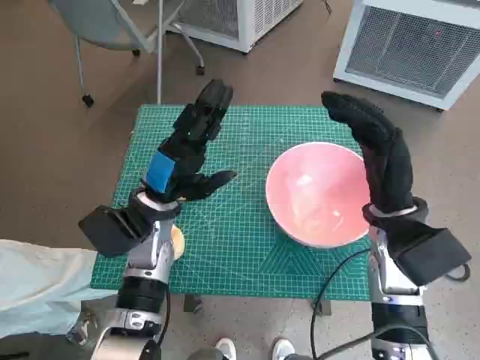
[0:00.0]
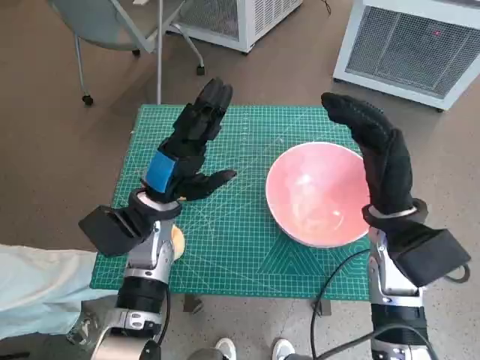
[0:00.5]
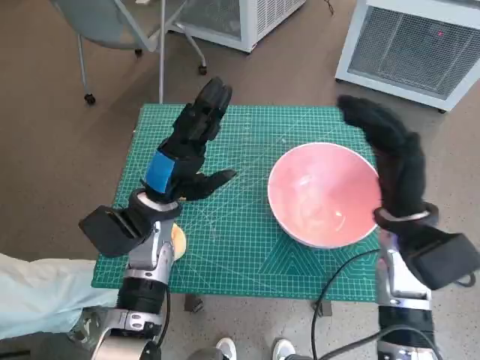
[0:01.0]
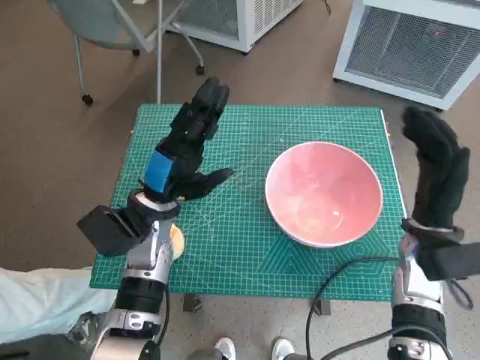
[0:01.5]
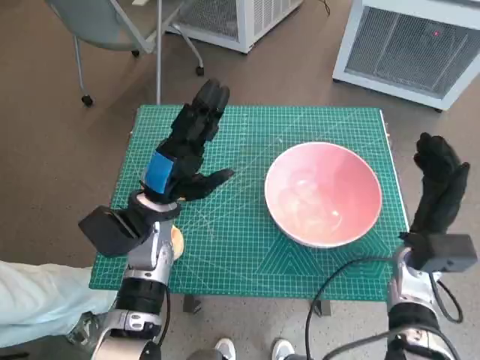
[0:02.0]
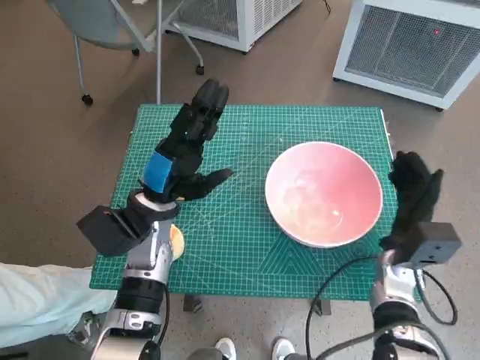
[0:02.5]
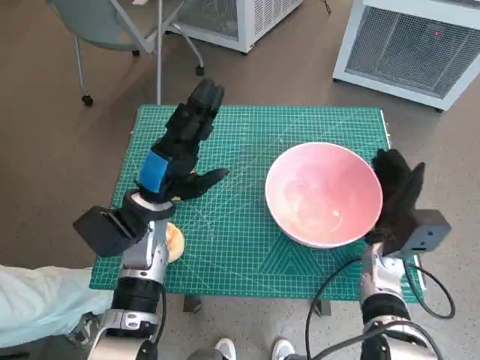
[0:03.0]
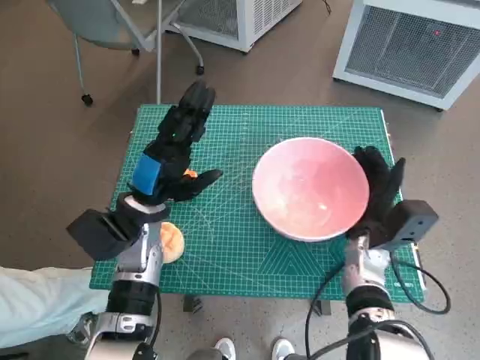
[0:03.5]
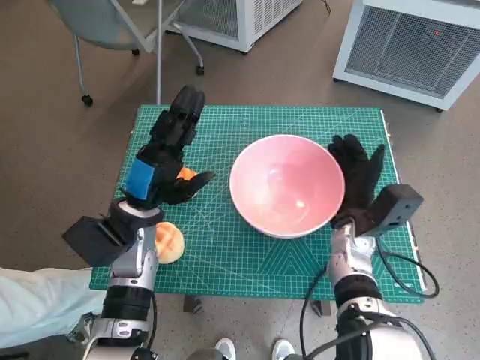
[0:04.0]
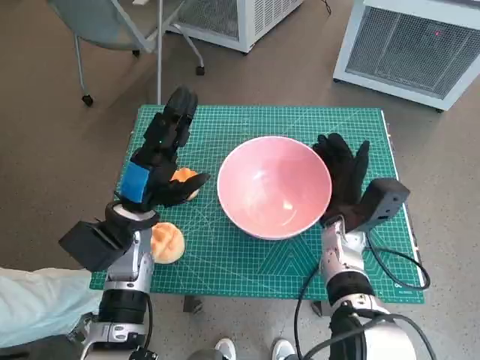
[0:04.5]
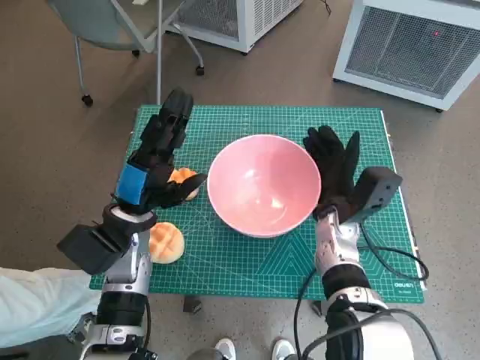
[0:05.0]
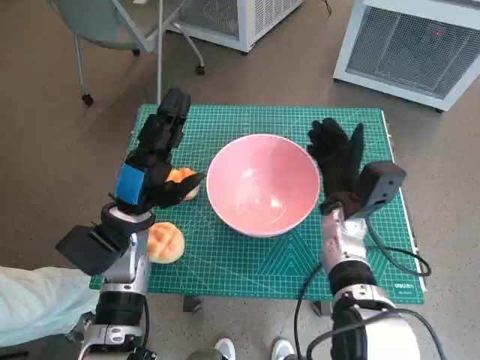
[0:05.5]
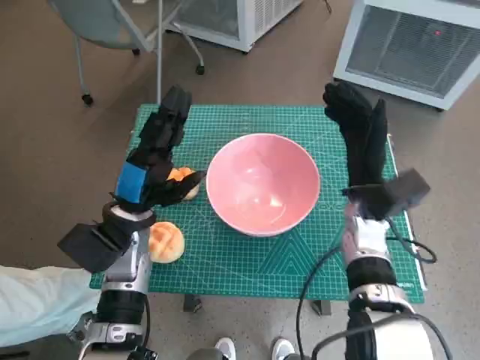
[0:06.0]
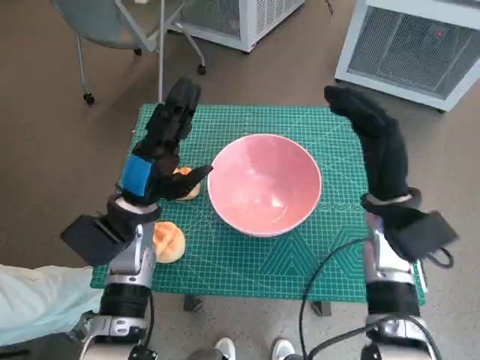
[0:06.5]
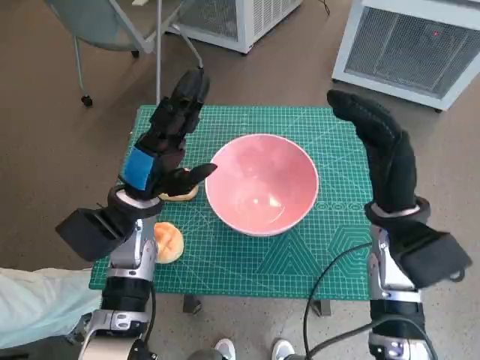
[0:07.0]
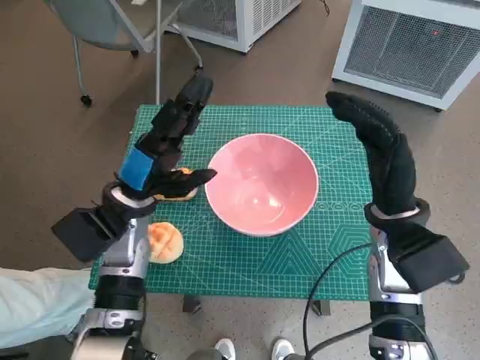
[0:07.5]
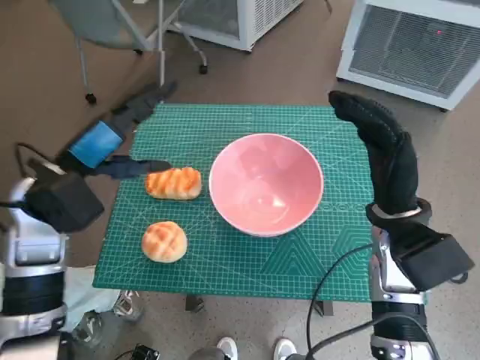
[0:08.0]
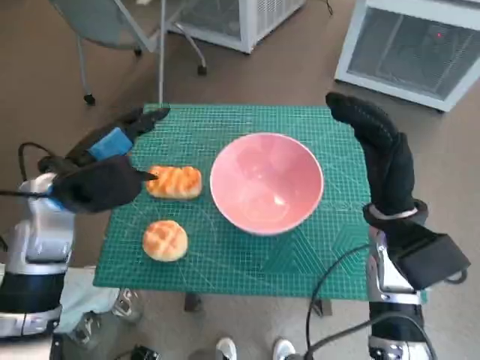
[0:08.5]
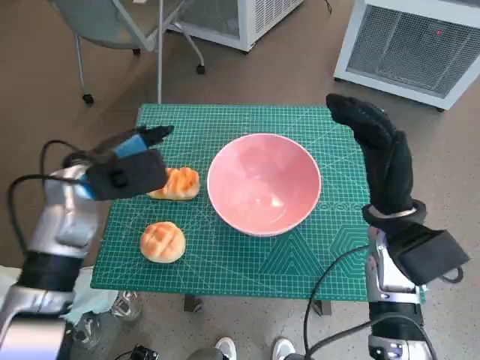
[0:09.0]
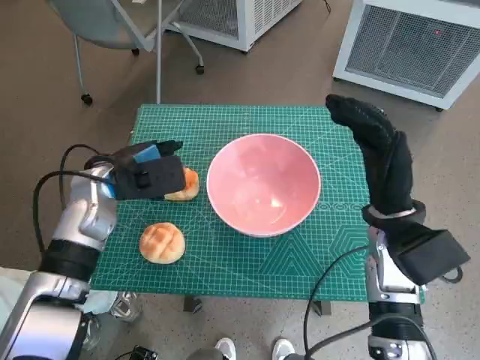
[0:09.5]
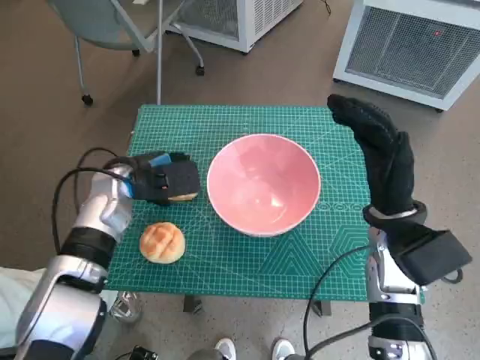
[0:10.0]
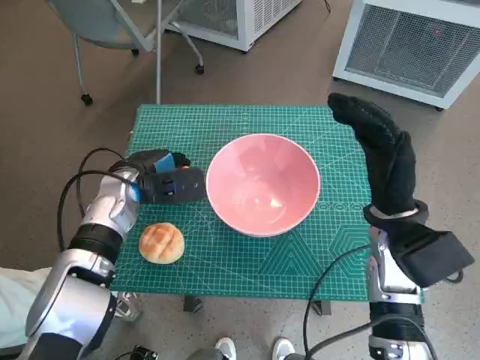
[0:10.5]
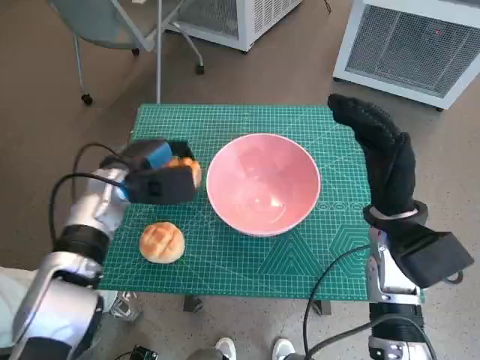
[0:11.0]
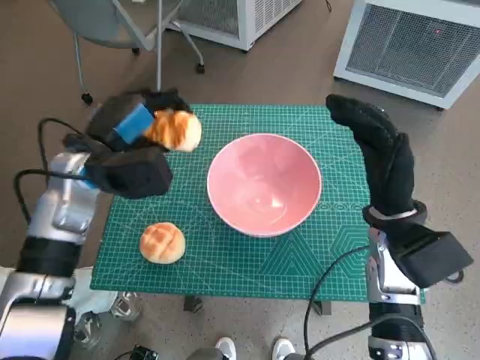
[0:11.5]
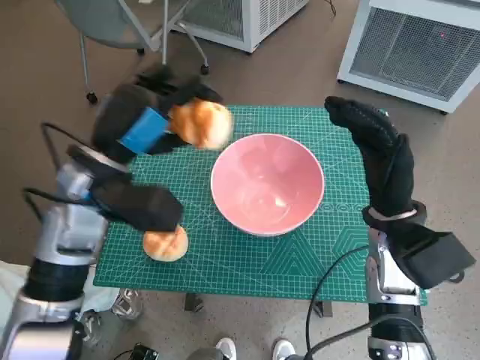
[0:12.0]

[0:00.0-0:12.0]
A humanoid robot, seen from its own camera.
Task of the whole recording: Push the bowl into the center of the table and put the bread into the bowl.
Step, 0:00.0 to 0:05.5: Move the pink bowl to the center of table with right hand.
Step, 0:06.0 to 0:10.0: Grasp the long bread with left hand.
0:02.0 to 0:04.0: The right hand is displaced to the left by about 10 cm.
0:04.0 to 0:06.0: The right hand moves upward, some 5 cm.
0:06.0 to 0:08.0: The left hand shifts approximately 10 cm upward and to the left. Meanwhile the right hand moves backward, roughly 5 cm.
0:08.0 to 0:10.0: The left hand heads downward and forward, covering some 10 cm.
0:10.0 to 0:12.0: The left hand travels upward and backward by some 10 cm.

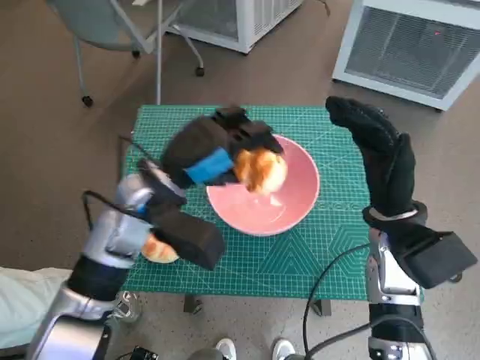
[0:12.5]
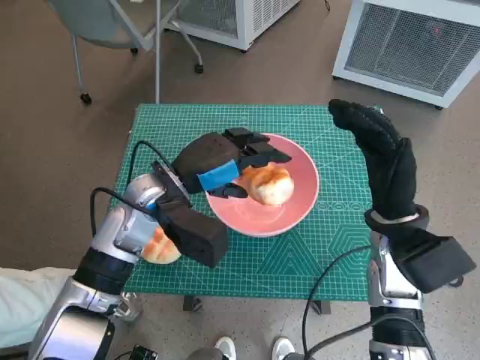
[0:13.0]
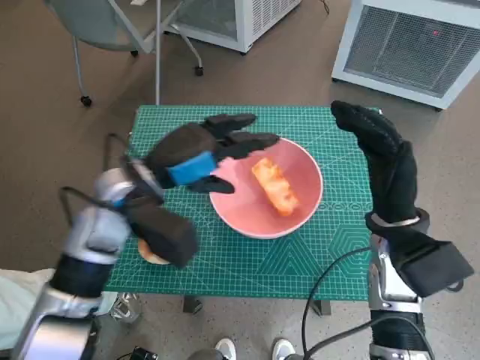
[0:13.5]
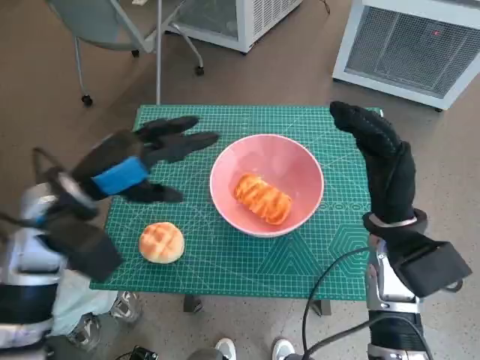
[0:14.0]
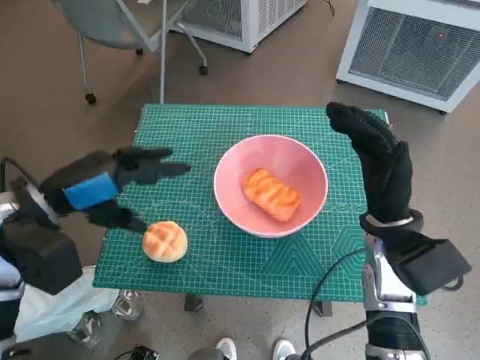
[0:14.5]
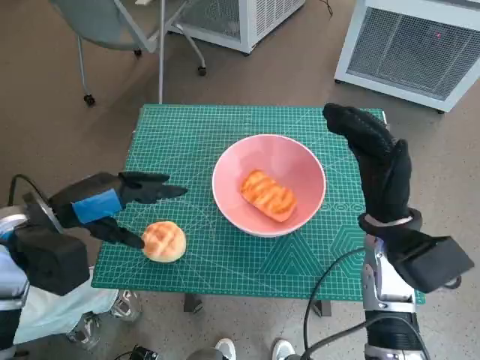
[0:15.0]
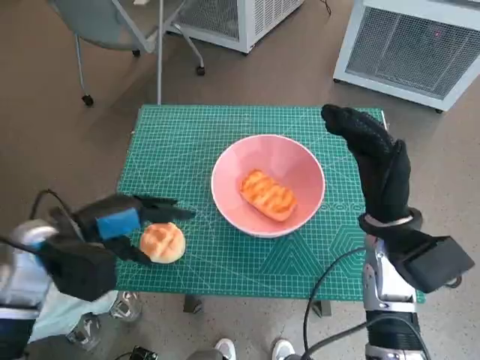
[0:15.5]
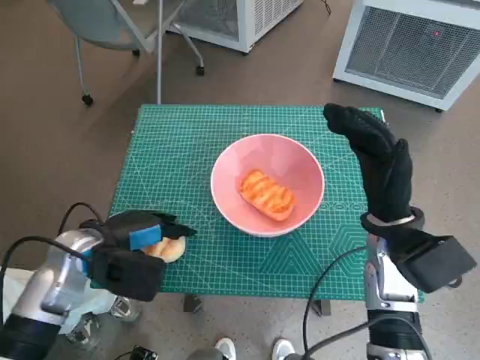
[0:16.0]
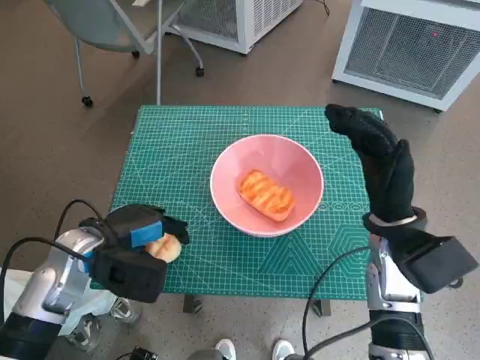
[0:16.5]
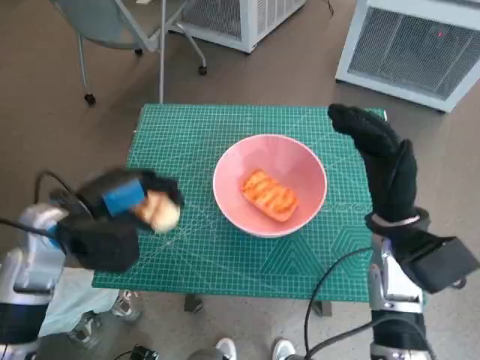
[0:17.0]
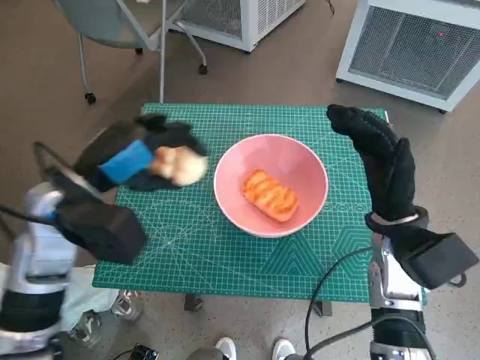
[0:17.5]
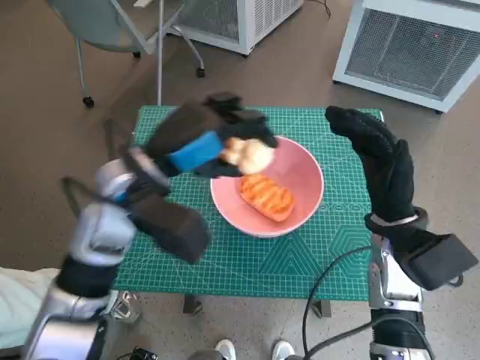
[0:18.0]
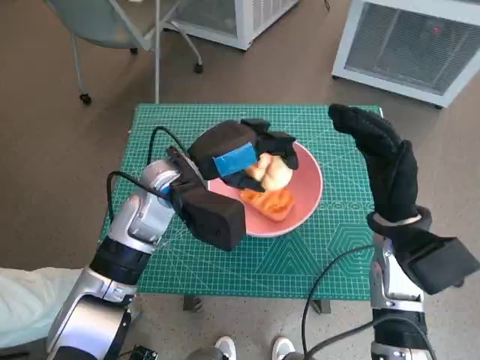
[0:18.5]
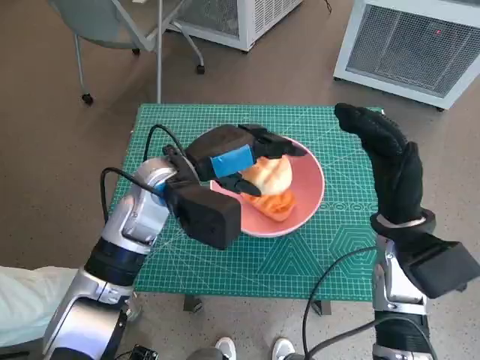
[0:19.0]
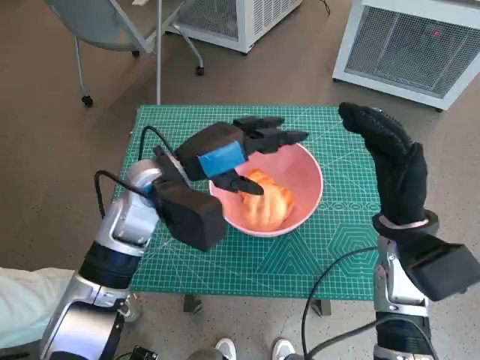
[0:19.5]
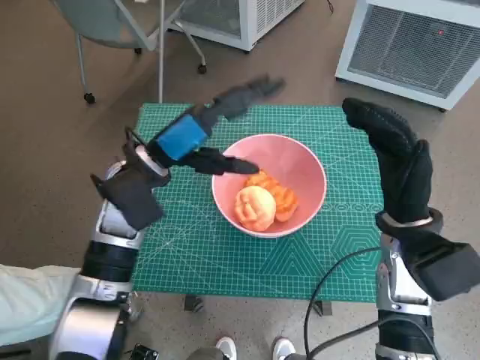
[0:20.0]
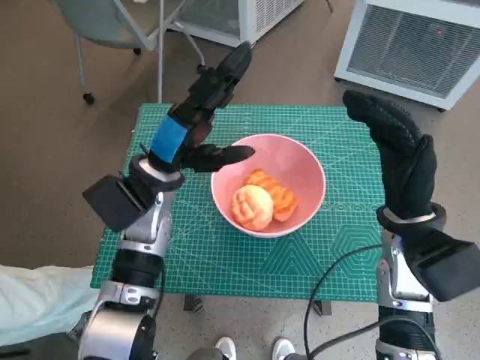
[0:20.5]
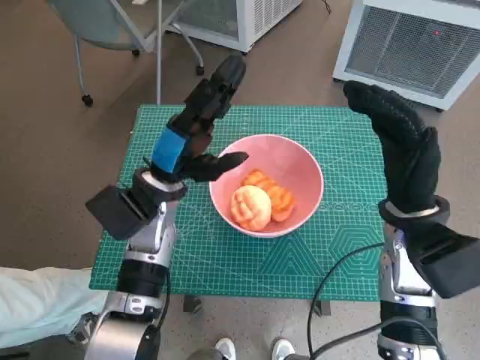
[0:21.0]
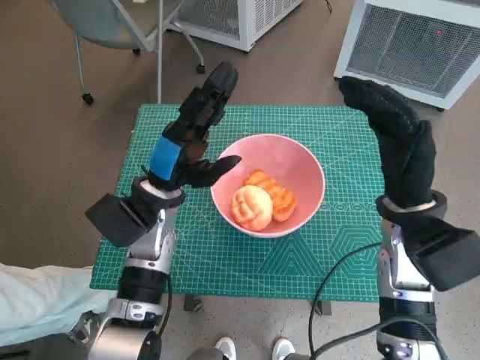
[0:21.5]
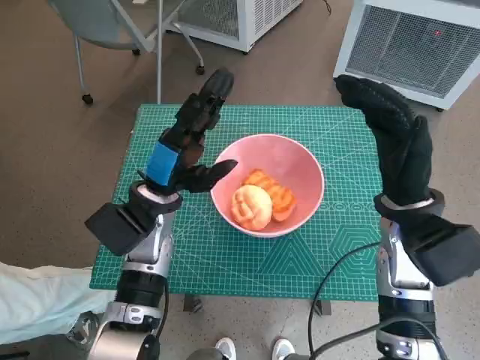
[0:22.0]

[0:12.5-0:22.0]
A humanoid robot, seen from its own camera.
Task of the whole recording: Push the bowl into the center of the table and put the bread into the bowl.
Step, 0:13.5 to 0:16.0: Grasp the round bread with left hand.
Step, 0:17.0 to 0:19.0: Place the round bread in pink bowl with left hand.
0:12.5 to 0:14.5: The left hand moves to the left, about 15 cm.
0:14.5 to 0:16.5: The left hand heads downward, covering about 10 cm.
0:16.5 to 0:18.0: The left hand shifts about 15 cm upward and to the right.
0:20.0 to 0:22.0: The left hand heads downward, covering approximately 5 cm.

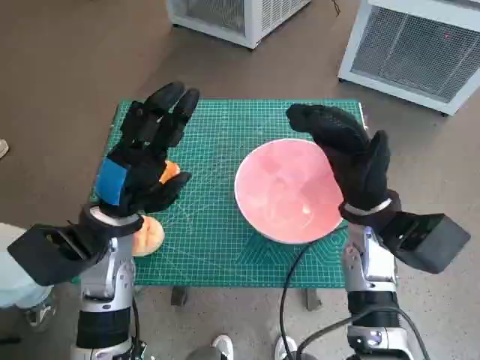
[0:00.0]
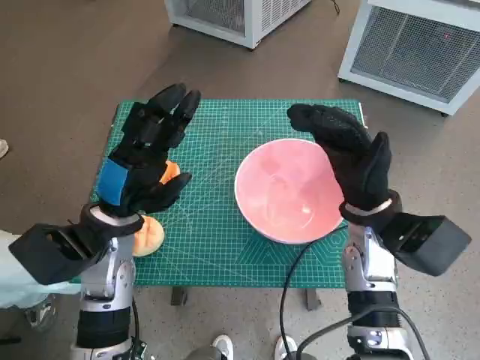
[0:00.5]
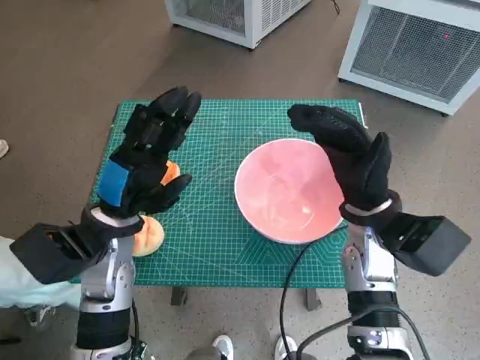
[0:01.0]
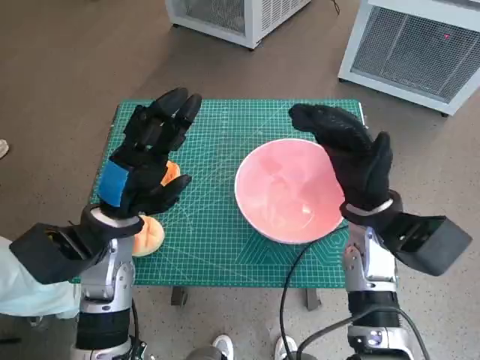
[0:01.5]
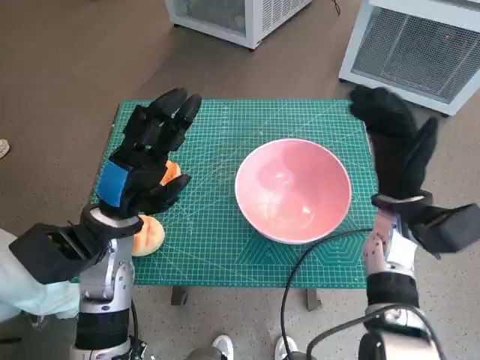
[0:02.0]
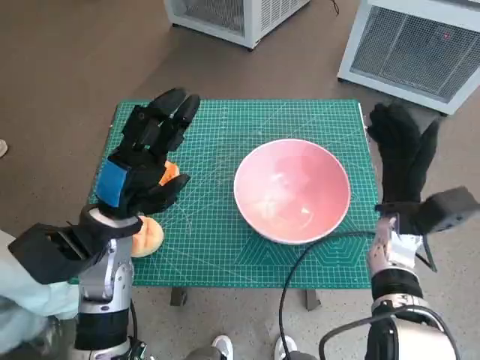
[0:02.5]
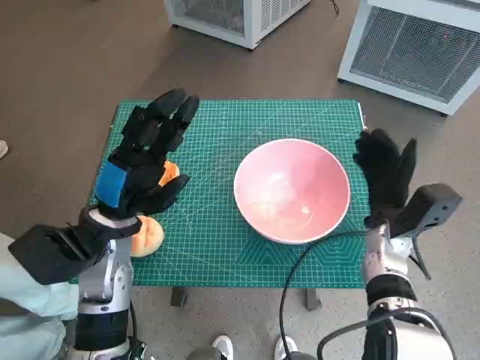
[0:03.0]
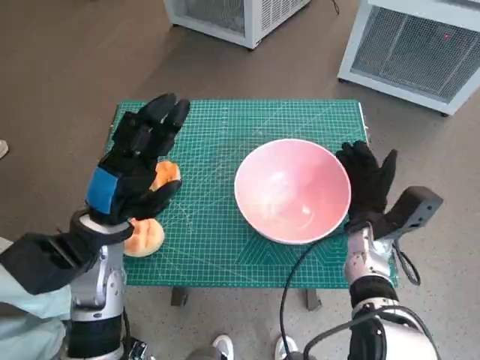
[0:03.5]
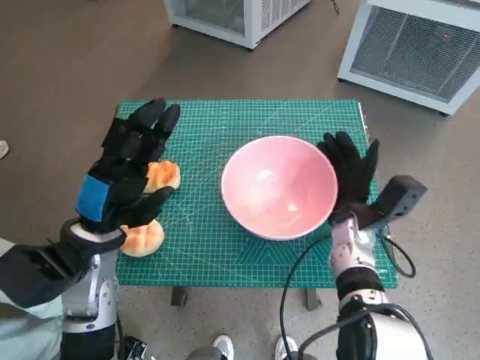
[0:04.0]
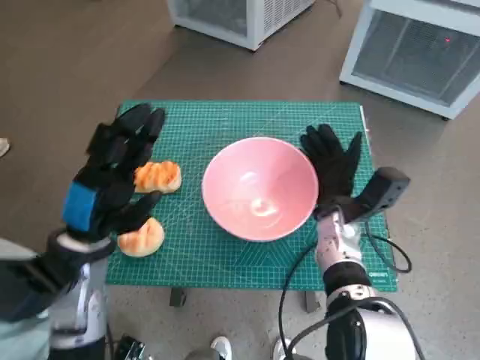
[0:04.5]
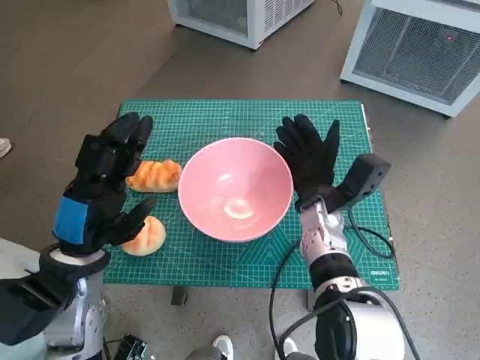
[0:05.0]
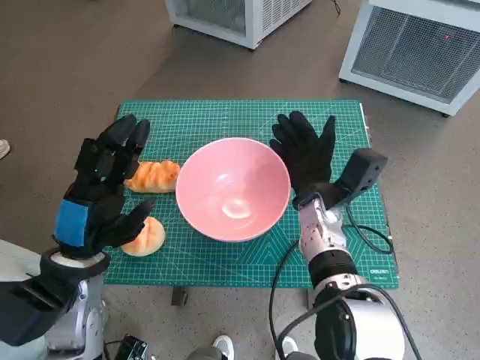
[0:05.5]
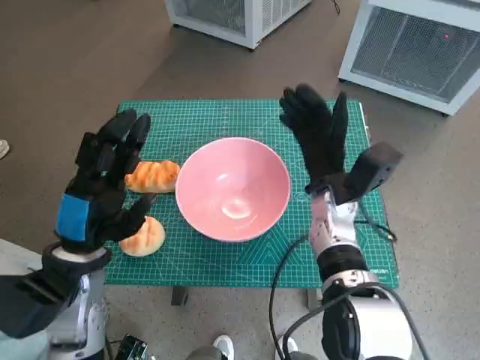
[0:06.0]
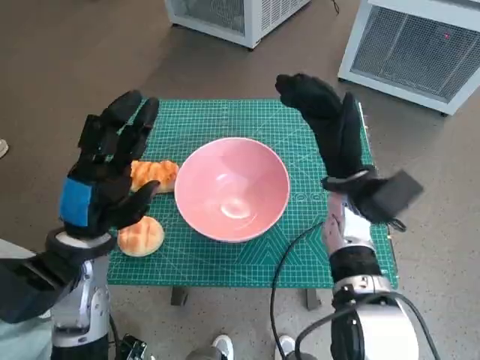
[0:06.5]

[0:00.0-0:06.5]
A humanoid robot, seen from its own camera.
Task of the whole recording: Push the bowl into the center of the table and put the bread into the bowl.
Step, 0:00.0 to 0:05.5: Move the pink bowl to the center of table with right hand.
0:02.0 to 0:04.5: The right hand goes some 10 cm to the left and downward.
0:04.5 to 0:06.5: The right hand moves upward, some 5 cm.
